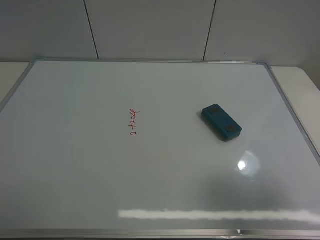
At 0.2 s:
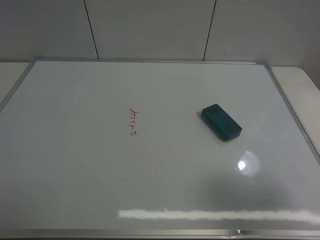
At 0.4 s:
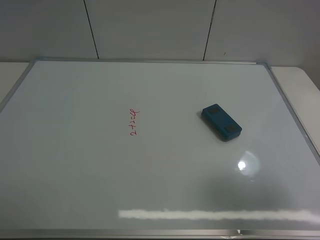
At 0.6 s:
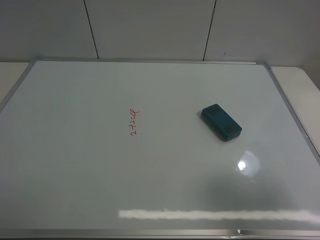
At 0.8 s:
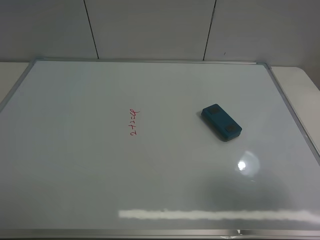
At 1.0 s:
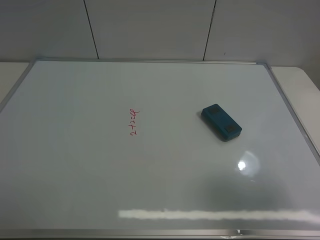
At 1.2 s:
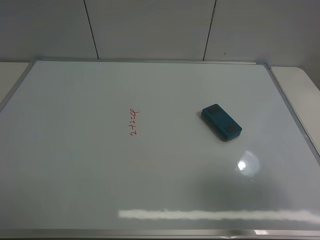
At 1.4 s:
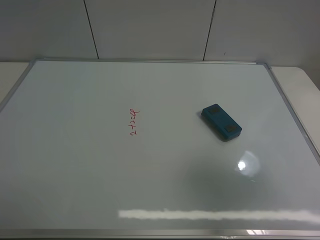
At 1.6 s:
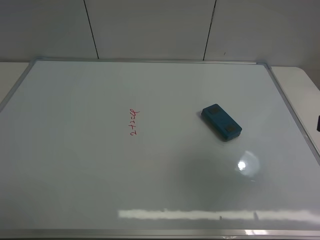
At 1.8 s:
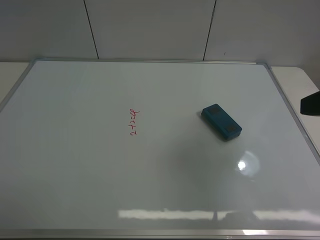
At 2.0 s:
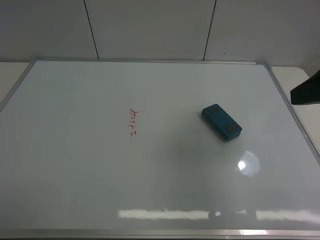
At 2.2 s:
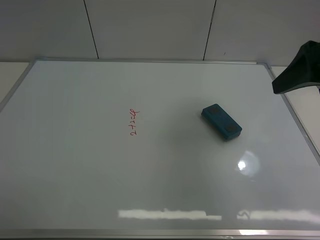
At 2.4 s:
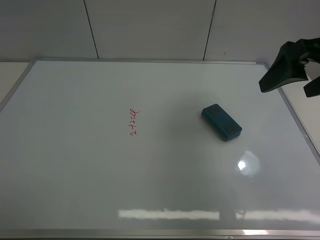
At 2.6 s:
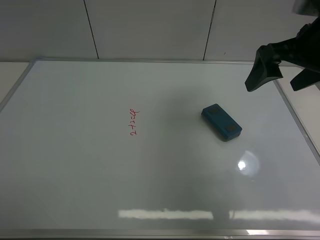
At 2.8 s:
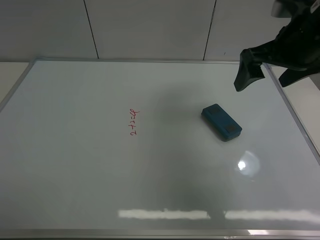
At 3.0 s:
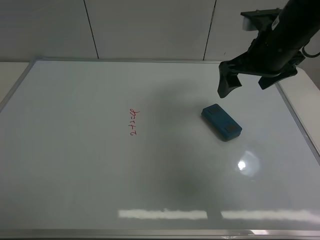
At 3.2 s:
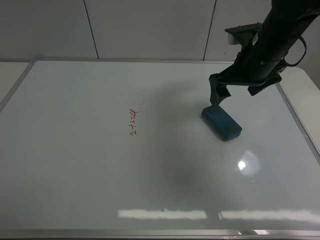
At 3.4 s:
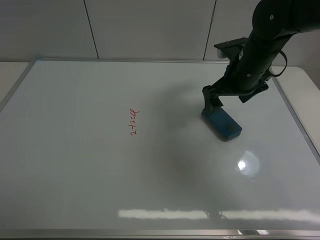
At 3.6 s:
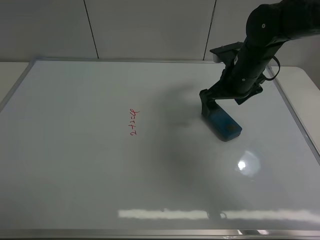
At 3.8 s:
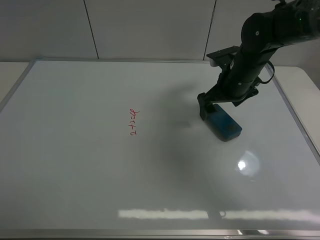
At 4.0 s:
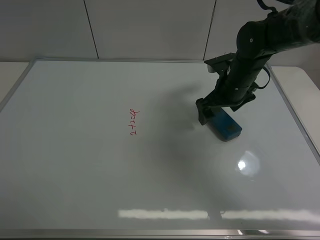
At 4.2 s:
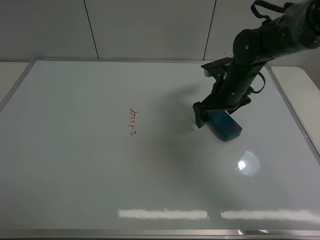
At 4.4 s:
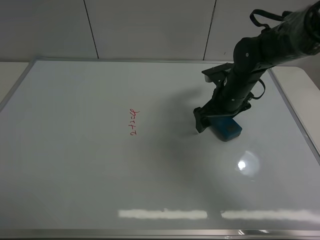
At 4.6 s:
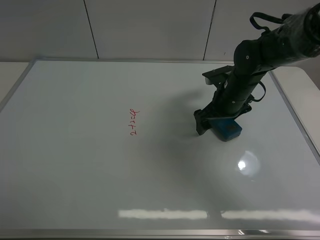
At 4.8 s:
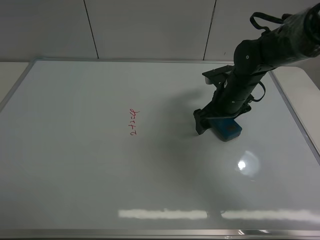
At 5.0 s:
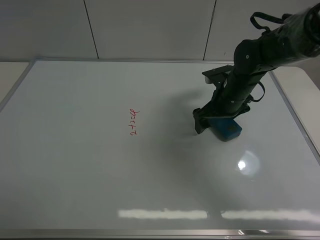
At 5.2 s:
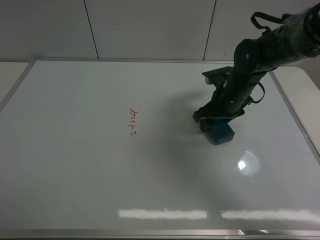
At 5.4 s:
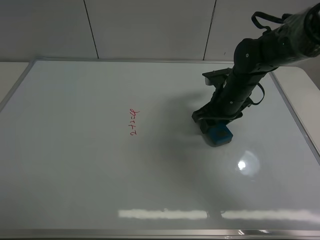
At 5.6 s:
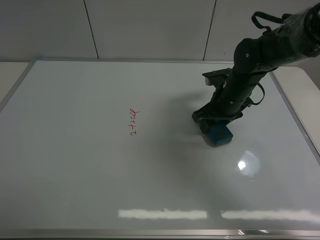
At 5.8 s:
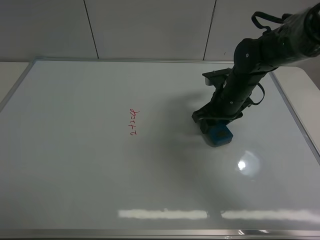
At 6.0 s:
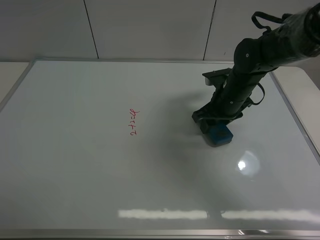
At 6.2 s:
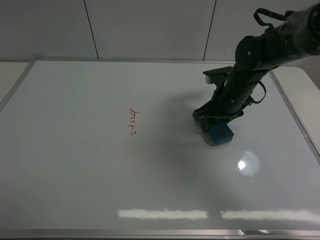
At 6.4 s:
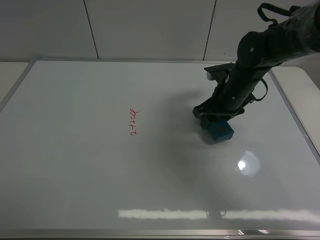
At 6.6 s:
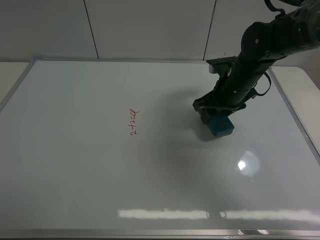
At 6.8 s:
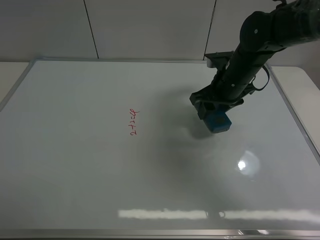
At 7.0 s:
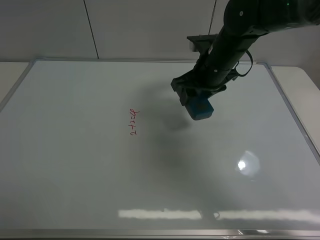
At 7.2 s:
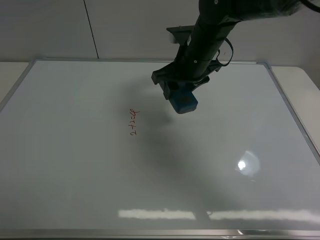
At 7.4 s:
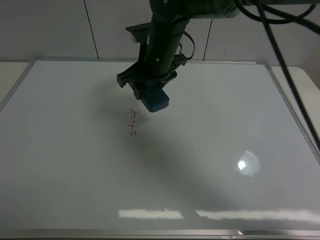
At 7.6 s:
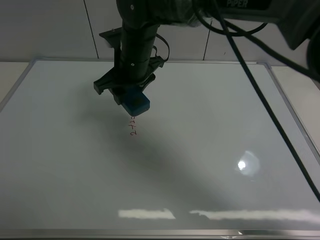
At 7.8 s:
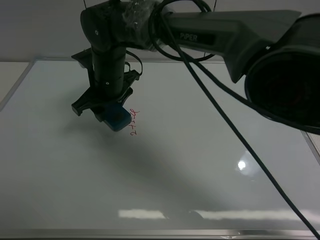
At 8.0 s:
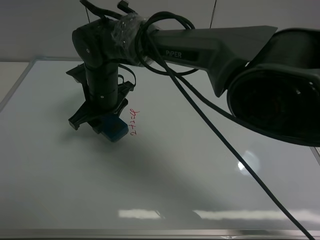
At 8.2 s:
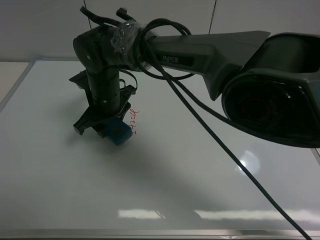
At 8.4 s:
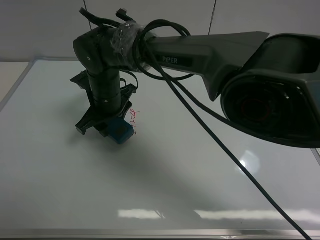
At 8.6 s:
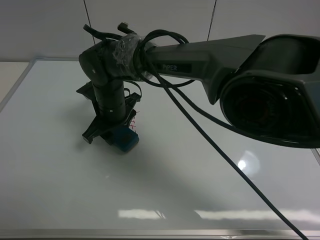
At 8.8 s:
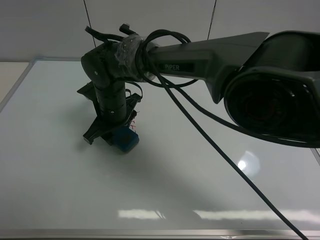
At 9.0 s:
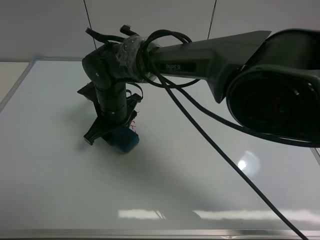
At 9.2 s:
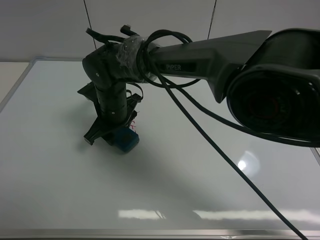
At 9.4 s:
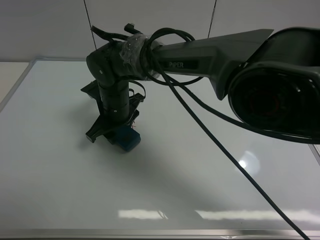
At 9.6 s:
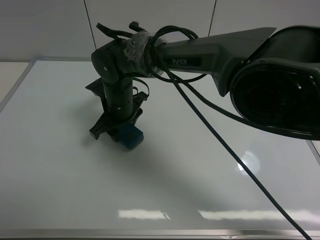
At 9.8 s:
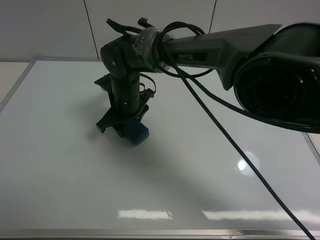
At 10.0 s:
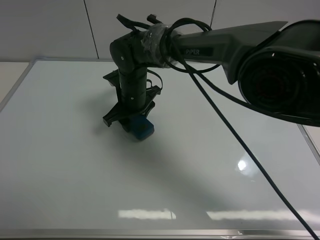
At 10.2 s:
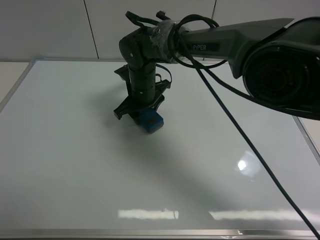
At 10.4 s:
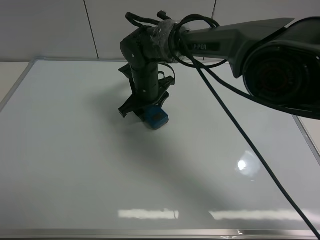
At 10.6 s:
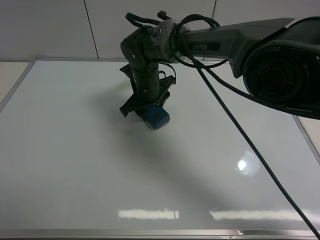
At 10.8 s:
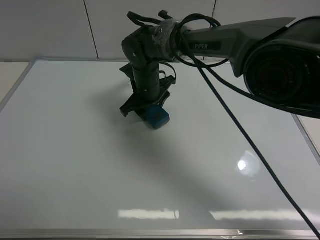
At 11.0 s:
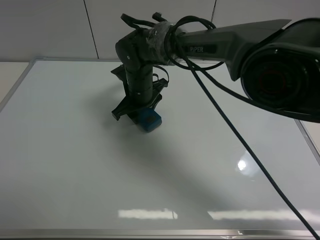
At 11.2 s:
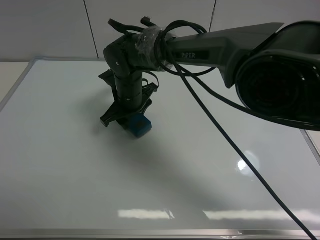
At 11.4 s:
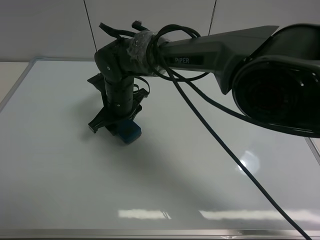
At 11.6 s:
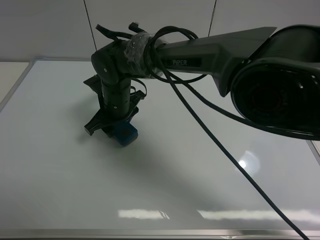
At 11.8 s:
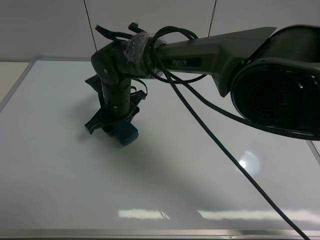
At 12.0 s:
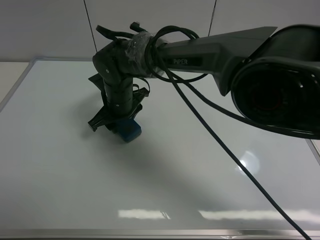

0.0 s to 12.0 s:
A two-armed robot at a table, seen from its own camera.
Task of the whole recording: use the right gripper to pick up the board eraser, wipe the notes on the whiteboard clean, and then put them back in place.
Step, 0.0 to 6.4 s: Pick up the board eraser with right gripper.
0.0 to 1.6 s: The right gripper travels forward by approximately 5 cm.
1.6 to 3.0 s: The right gripper heads forward and to the left, covering approximately 25 cm.
3.0 to 4.4 s: The right gripper heads downward, covering some 15 cm.
4.4 to 6.0 s: The right gripper closes its fingers.
6.0 to 7.6 s: The right gripper goes about 20 cm to the left and upward.
7.6 to 9.0 s: The right gripper is displaced downward and to the left by about 10 cm.
9.0 to 10.4 s: The right gripper heads forward and to the right, covering roughly 10 cm.
10.4 to 12.0 s: The right gripper heads to the left, covering approximately 5 cm.

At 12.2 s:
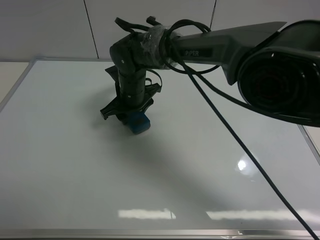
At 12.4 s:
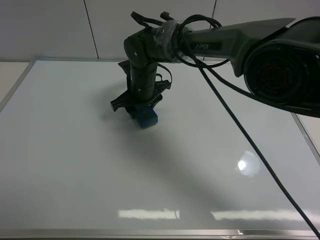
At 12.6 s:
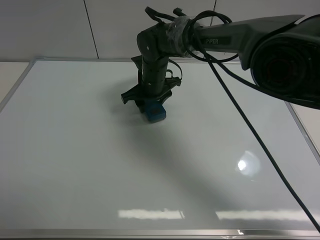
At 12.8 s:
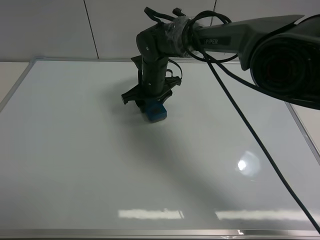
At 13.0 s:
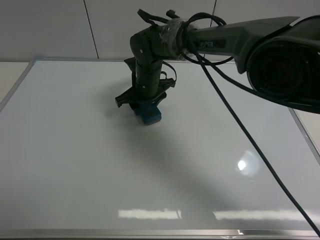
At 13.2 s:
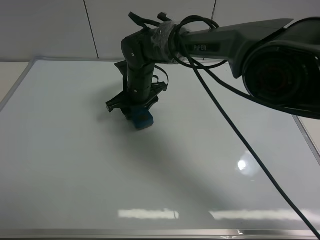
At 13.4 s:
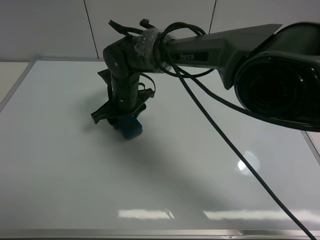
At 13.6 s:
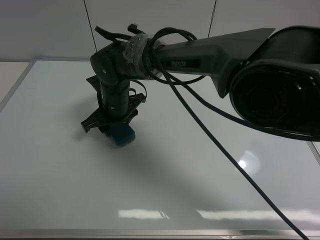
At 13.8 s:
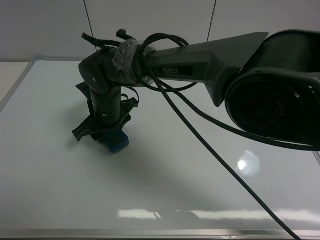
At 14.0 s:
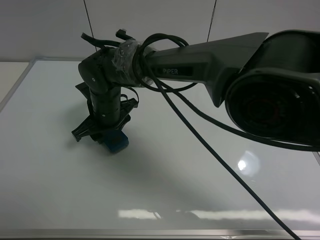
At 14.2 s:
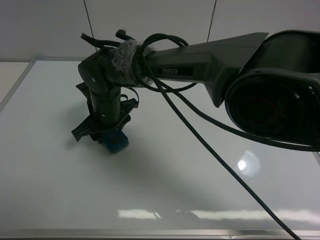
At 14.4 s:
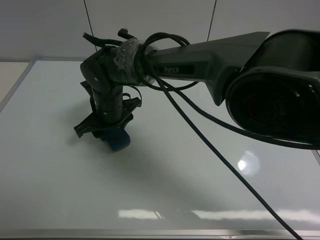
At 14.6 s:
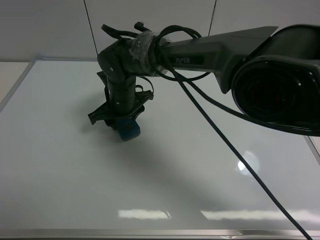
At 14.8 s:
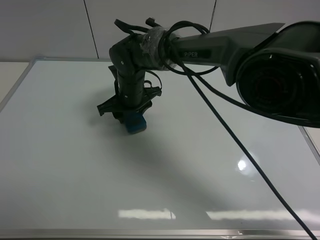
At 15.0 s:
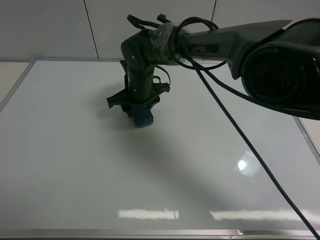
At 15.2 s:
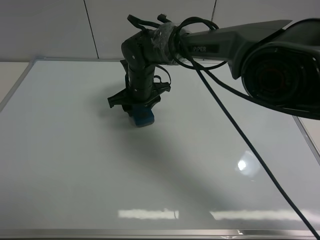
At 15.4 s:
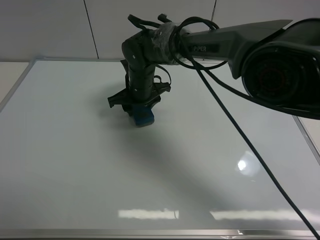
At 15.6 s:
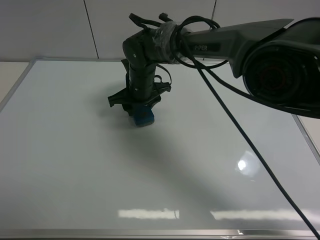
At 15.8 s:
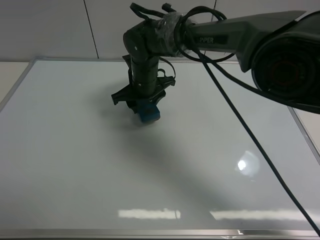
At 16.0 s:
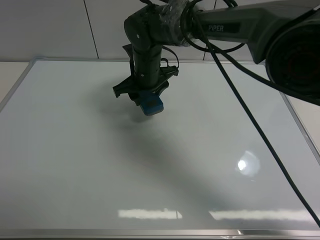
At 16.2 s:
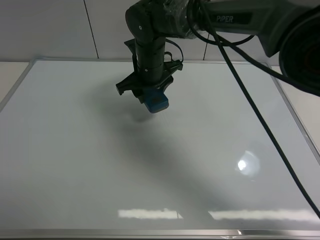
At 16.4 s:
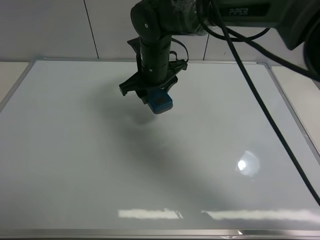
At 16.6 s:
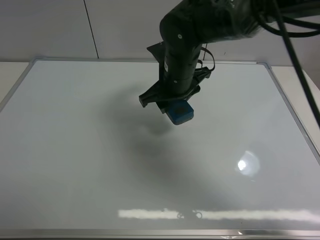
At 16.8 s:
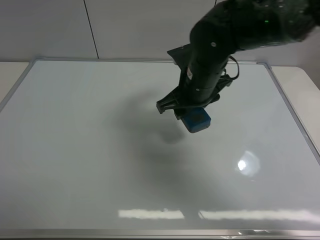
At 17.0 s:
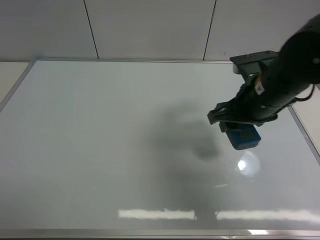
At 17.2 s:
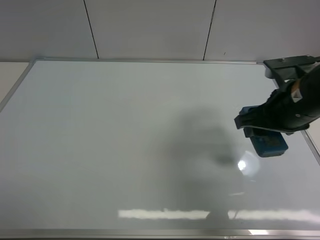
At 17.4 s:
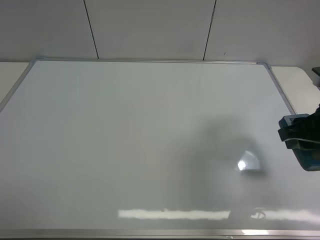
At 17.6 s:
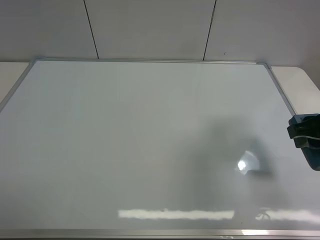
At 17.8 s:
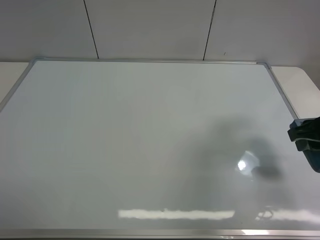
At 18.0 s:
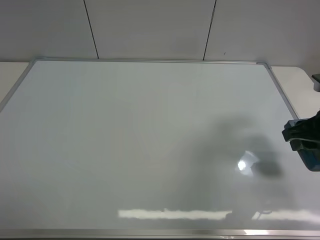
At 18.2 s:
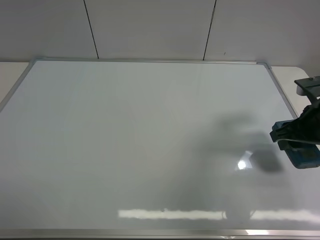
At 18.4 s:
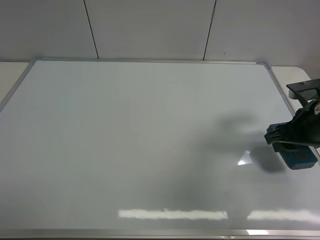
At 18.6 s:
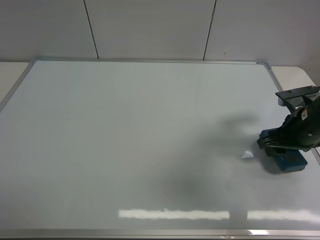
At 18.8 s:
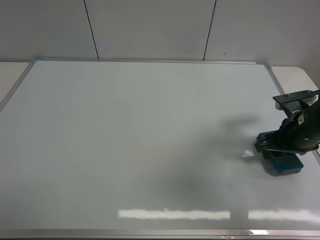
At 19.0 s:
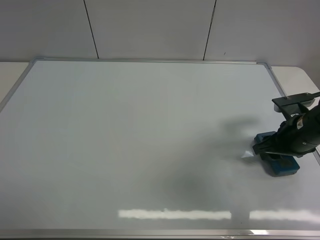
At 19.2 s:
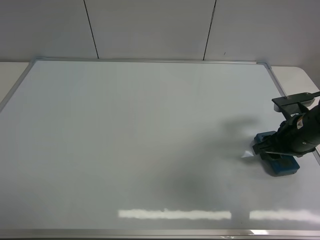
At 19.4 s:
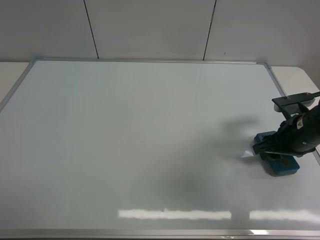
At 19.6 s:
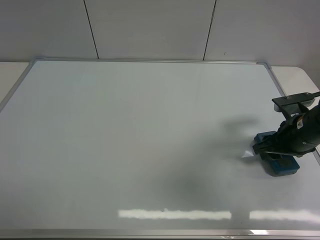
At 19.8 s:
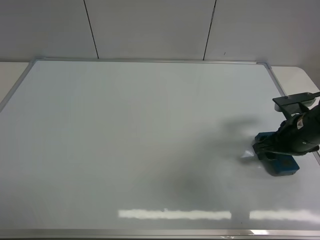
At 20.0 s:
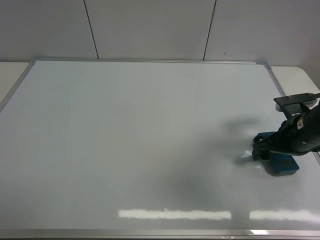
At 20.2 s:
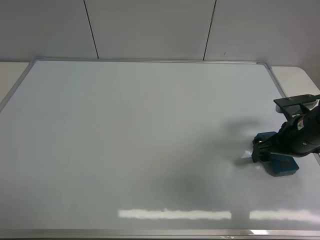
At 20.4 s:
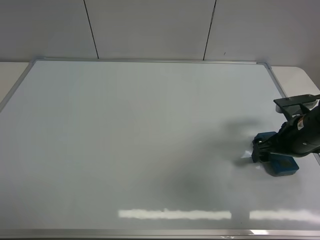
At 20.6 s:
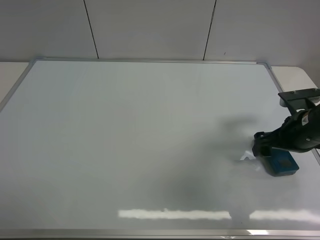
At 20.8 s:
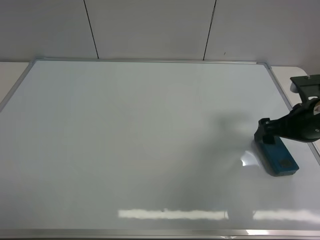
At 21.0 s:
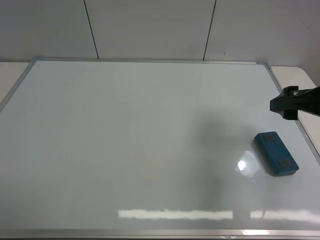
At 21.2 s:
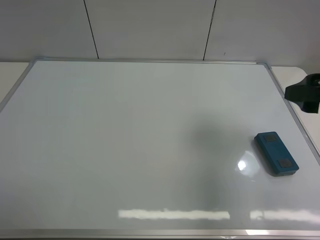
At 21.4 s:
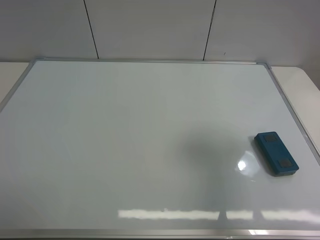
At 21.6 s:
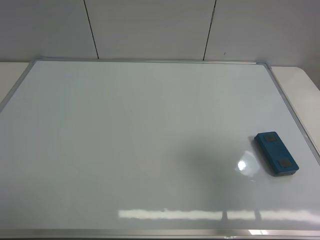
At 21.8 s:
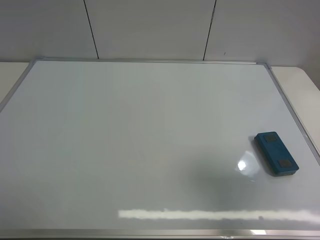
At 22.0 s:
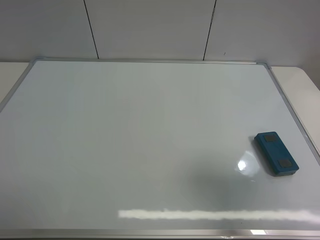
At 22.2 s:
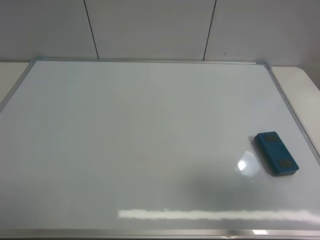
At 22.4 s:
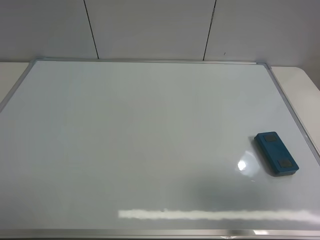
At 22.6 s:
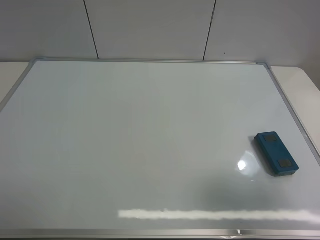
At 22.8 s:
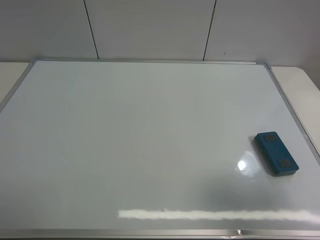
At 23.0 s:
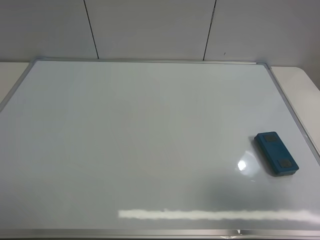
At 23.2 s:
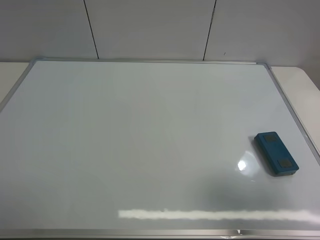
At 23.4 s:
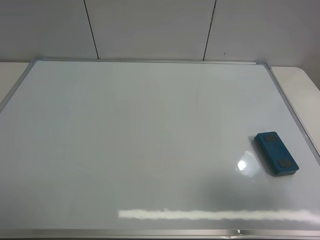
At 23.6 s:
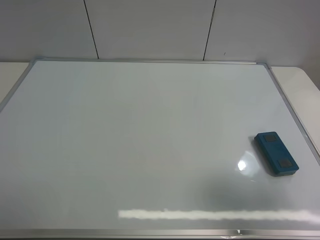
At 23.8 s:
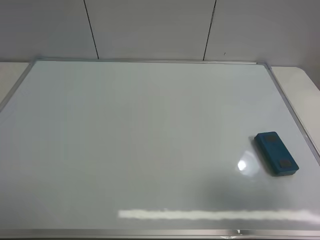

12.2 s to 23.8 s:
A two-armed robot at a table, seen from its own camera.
Task of the whole recording: use the right gripper to pick up the board eraser, wipe the notes on the whiteboard clean, and then put them back in place.
Step, 12.2 to 15.6 s: Wipe off the writing on the board with right gripper.
Step, 15.8 to 20.0 s: Move the board eraser to the right of the whiteboard with right gripper.
12.2 to 13.6 s: The right gripper moves roughly 5 cm.
13.6 to 15.0 s: The right gripper moves forward and to the right, some 10 cm.
15.0 to 16.6 s: The right gripper travels to the right, upward and backward by approximately 15 cm.
16.6 to 18.0 s: The right gripper goes roughly 25 cm to the right and backward.
18.0 to 19.4 s: The right gripper moves downward, approximately 10 cm.
19.4 to 21.0 s: The right gripper moves upward, roughly 10 cm, and opens.
21.0 to 22.4 s: The right gripper travels backward by some 20 cm.
